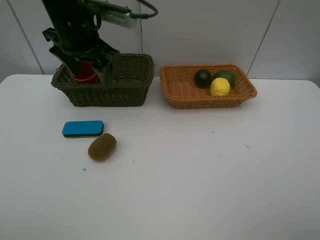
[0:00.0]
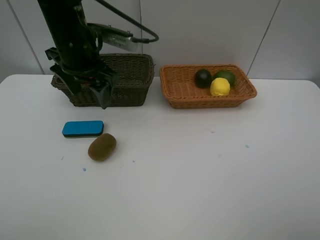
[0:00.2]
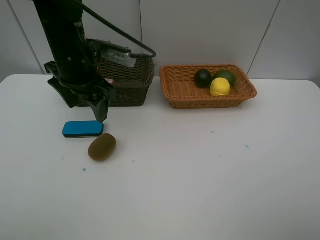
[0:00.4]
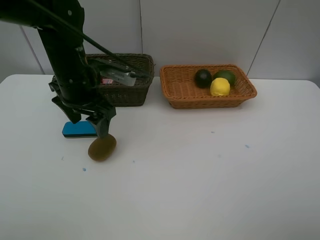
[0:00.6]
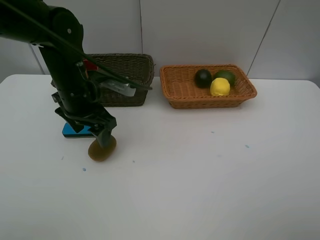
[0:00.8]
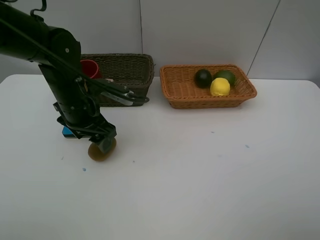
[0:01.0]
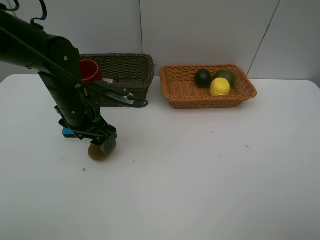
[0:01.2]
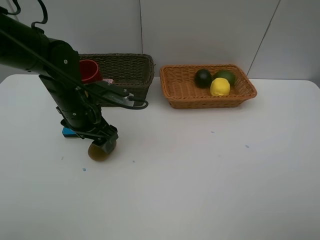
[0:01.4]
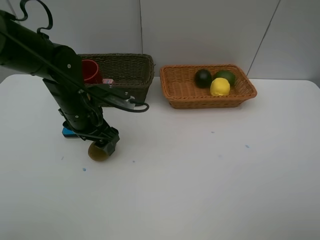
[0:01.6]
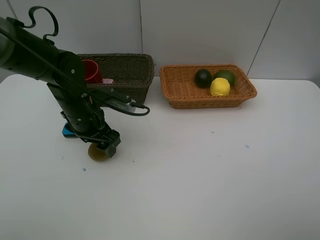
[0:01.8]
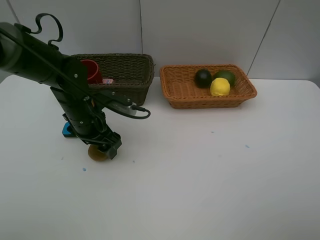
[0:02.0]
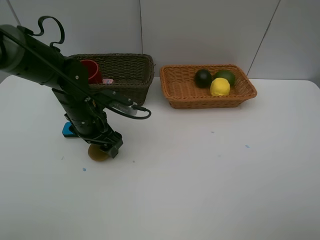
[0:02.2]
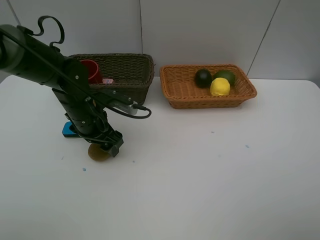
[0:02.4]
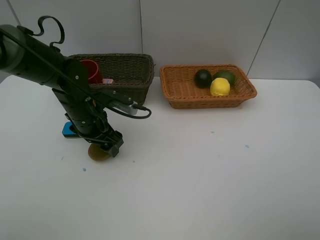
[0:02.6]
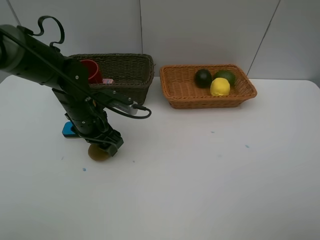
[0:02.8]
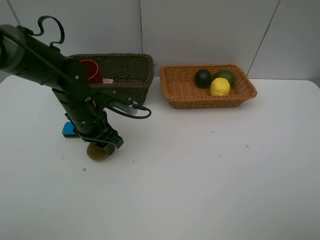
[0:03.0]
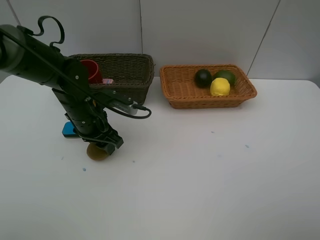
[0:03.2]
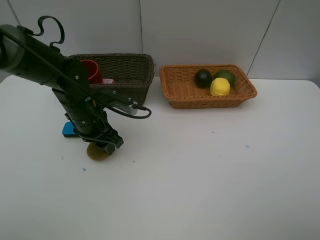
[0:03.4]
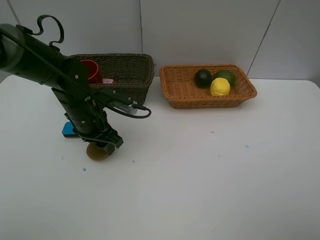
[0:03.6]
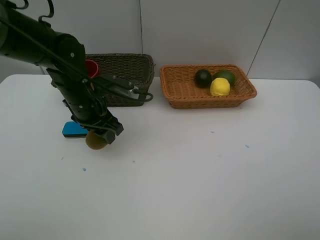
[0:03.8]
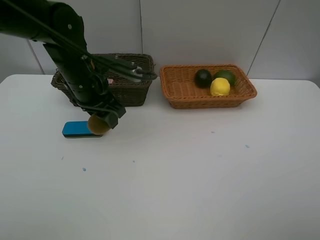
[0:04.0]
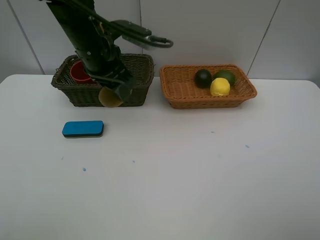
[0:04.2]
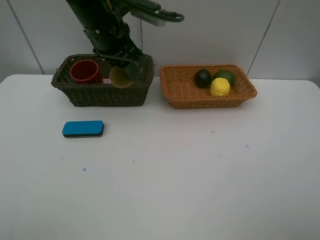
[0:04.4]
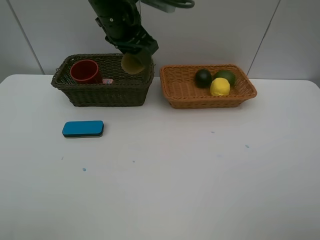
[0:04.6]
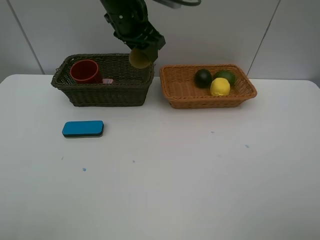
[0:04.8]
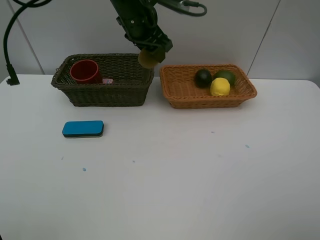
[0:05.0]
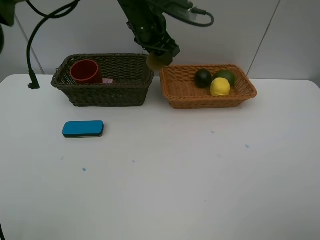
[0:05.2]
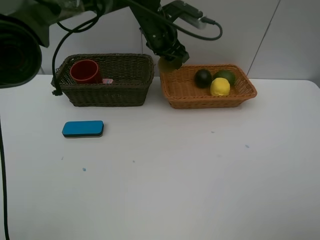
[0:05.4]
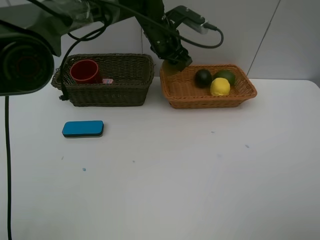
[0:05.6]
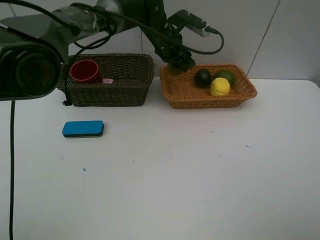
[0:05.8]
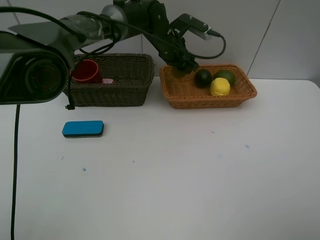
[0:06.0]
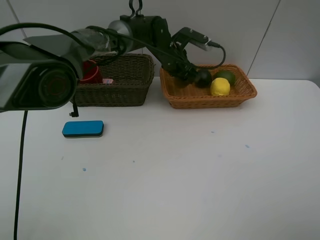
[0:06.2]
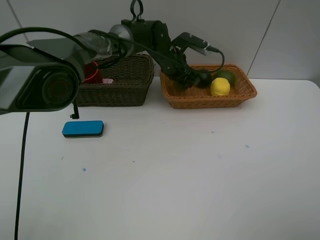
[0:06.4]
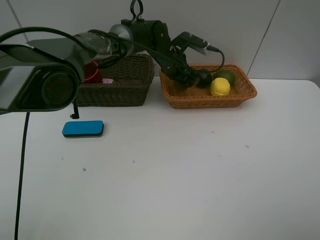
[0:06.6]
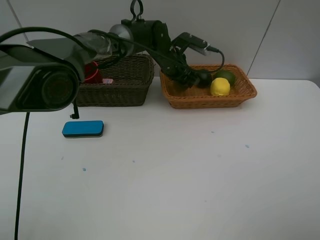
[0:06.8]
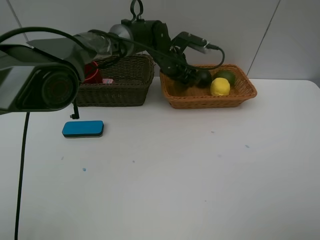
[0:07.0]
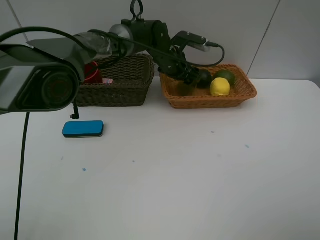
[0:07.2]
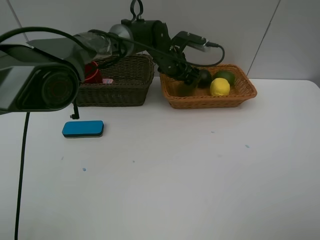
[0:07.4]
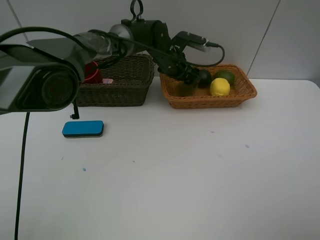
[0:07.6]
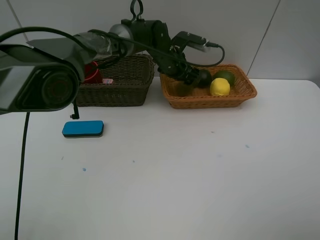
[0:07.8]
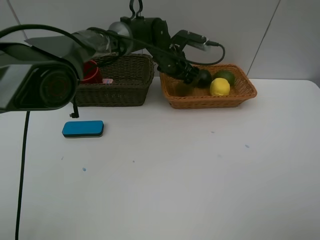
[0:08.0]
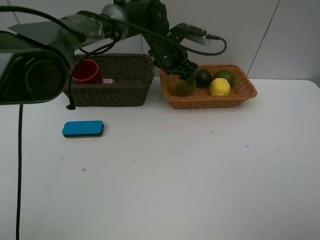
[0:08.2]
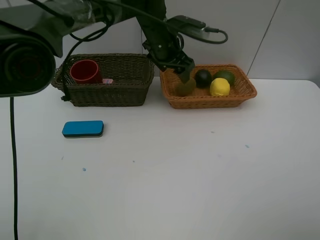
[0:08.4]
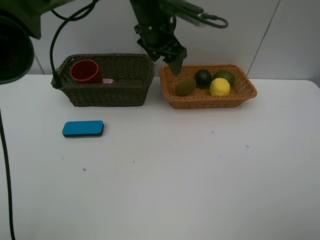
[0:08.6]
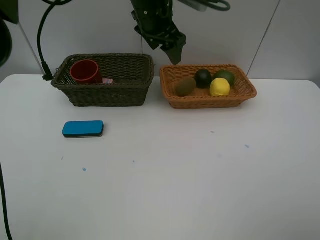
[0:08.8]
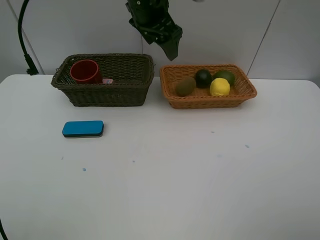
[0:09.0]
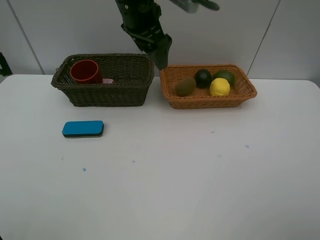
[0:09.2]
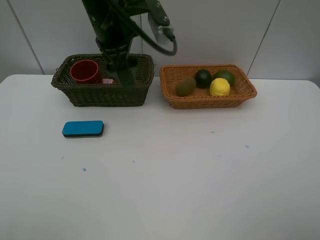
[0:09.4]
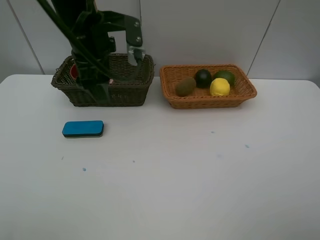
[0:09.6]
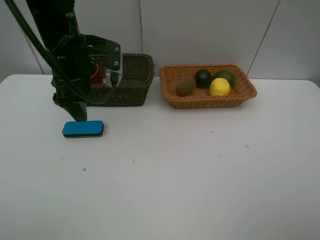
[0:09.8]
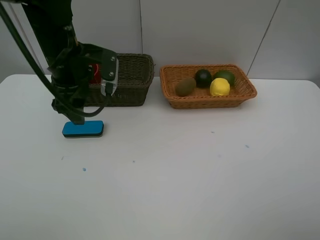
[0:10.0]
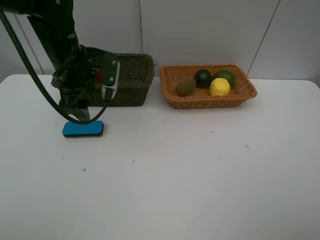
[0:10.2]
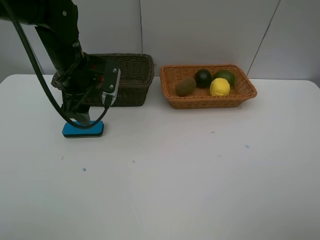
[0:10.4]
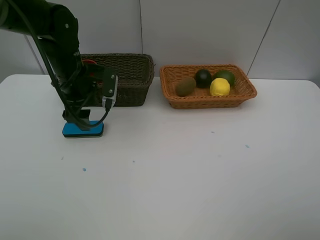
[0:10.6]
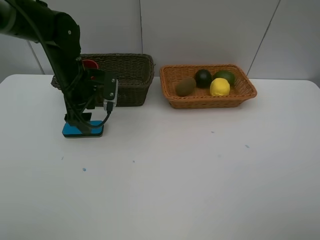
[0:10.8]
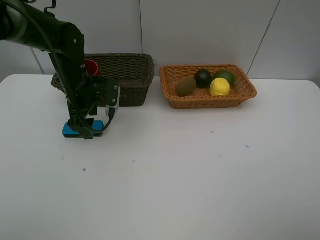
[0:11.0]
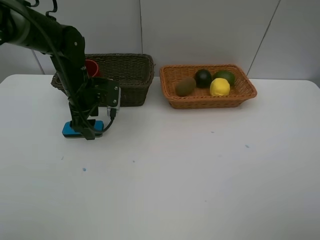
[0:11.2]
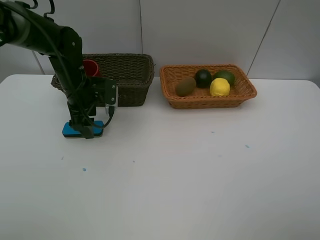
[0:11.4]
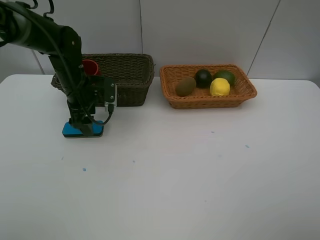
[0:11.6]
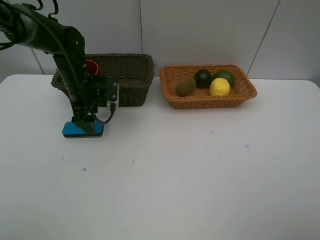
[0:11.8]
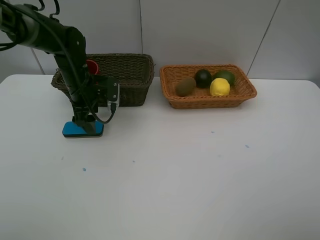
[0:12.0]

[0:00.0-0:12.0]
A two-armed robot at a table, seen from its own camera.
Task of the whole recording: Place multiple objects separately in different baskets.
Step, 0:00.0 to 0:03.8: Pick up kiwi with left gripper.
Step, 0:04.0 to 0:08.0: Place the kiwi in the light basket with left gripper.
0:00.0 to 0:01.6: The left gripper shifts roughly 15 cm downward.
0:01.6 to 0:03.0: There are only small adjustments of the grippers.
0:03.0 to 0:04.4: The left gripper shifts approximately 15 cm upward.
0:04.4 to 0:06.0: The left gripper moves forward, to the right and downward, some 20 cm.
0:06.0 to 0:07.6: The grippers make only small movements.
0:07.6 to 0:09.0: The left gripper travels upward and backward by approximately 20 cm.
0:09.0 to 0:10.4: The left gripper is displaced to the left, downward and backward by approximately 20 cm.
0:10.4 to 0:12.0: The left gripper is displaced downward by roughly 5 cm.

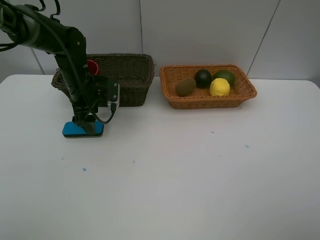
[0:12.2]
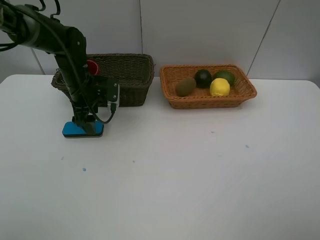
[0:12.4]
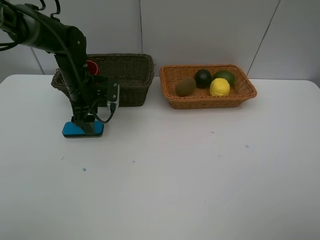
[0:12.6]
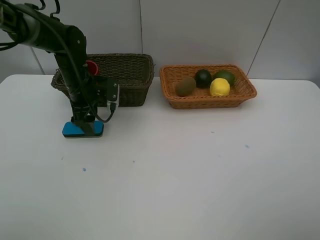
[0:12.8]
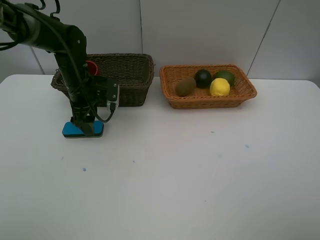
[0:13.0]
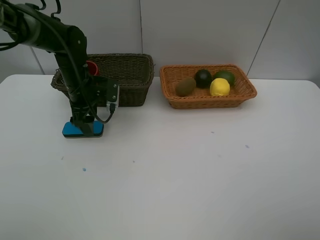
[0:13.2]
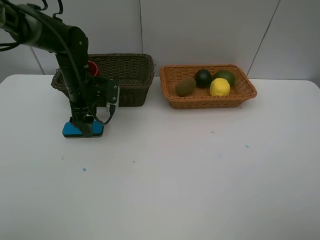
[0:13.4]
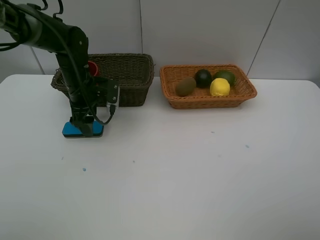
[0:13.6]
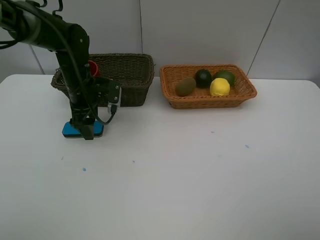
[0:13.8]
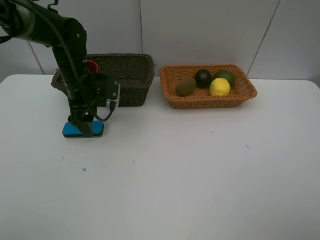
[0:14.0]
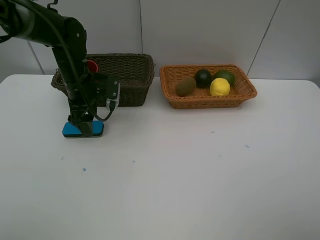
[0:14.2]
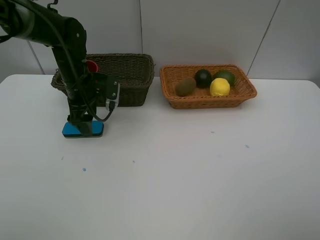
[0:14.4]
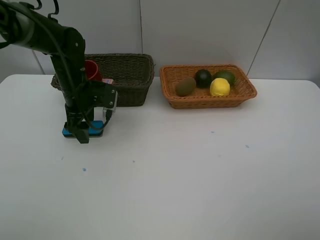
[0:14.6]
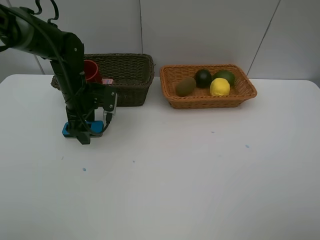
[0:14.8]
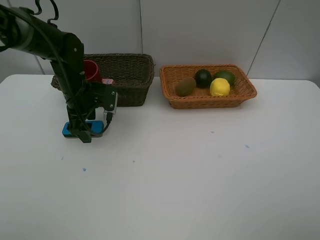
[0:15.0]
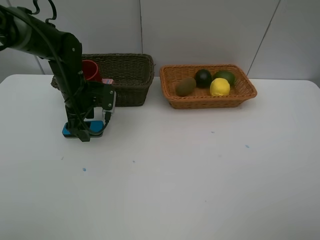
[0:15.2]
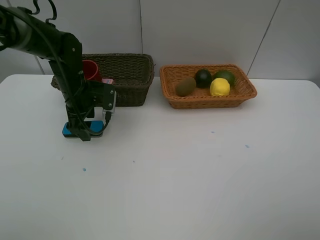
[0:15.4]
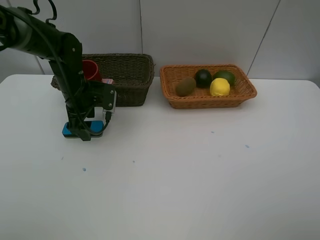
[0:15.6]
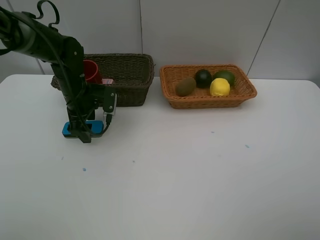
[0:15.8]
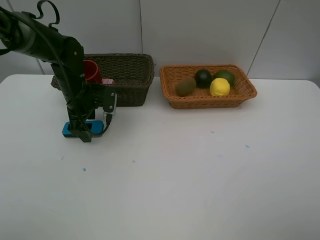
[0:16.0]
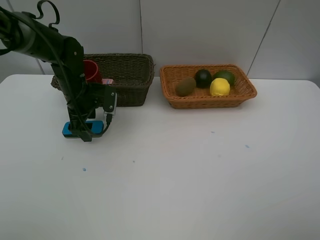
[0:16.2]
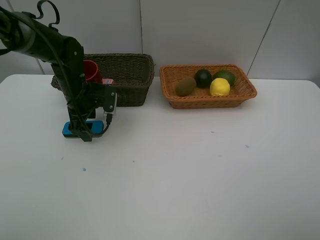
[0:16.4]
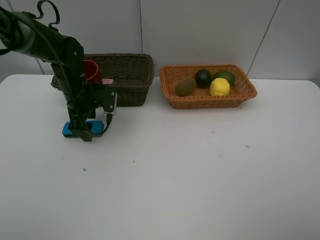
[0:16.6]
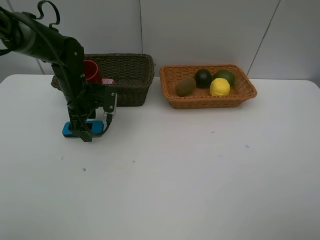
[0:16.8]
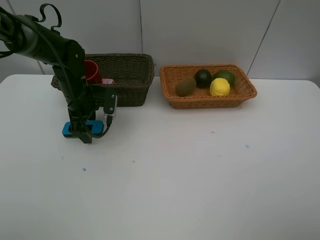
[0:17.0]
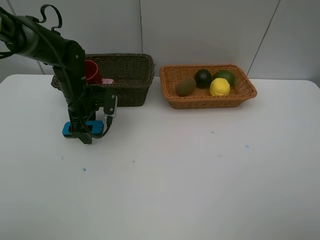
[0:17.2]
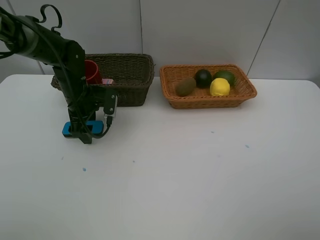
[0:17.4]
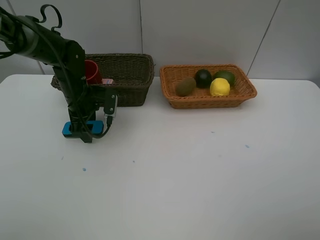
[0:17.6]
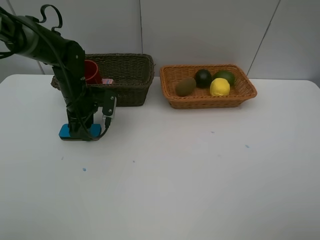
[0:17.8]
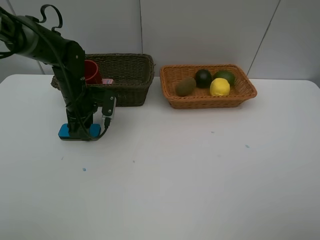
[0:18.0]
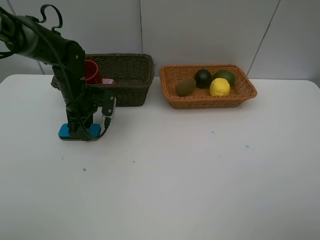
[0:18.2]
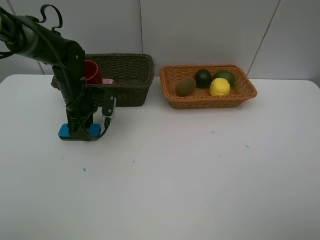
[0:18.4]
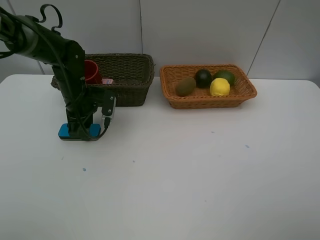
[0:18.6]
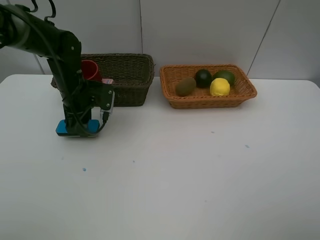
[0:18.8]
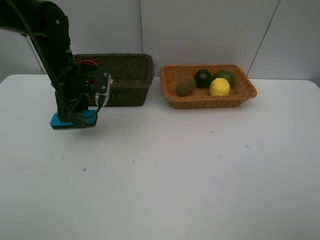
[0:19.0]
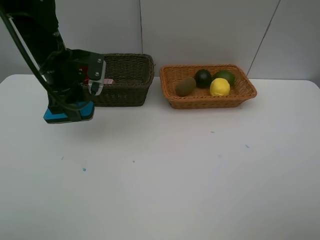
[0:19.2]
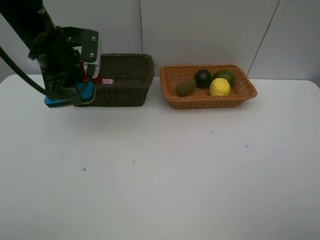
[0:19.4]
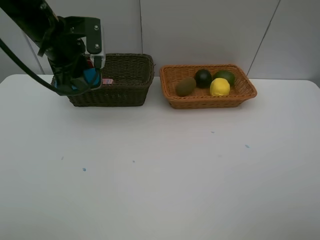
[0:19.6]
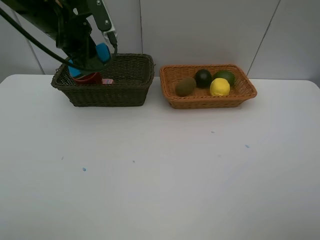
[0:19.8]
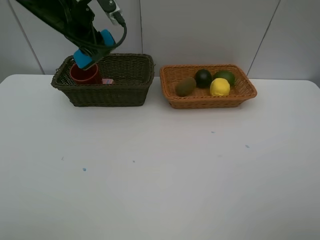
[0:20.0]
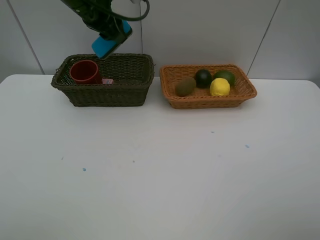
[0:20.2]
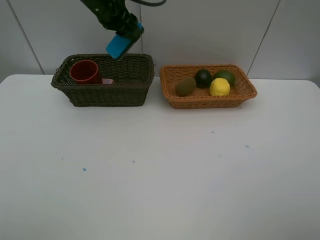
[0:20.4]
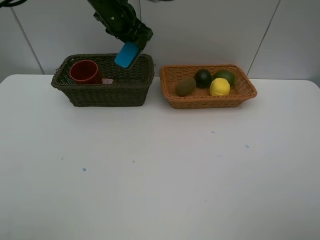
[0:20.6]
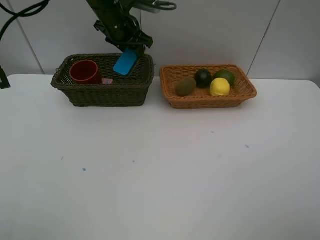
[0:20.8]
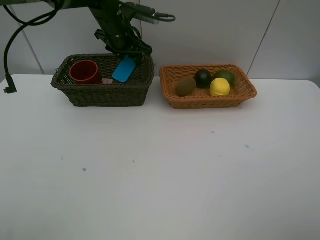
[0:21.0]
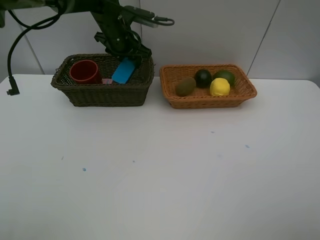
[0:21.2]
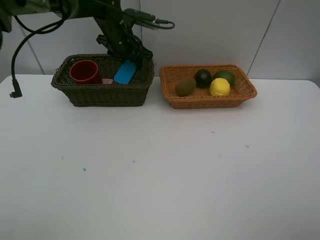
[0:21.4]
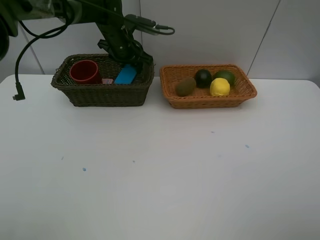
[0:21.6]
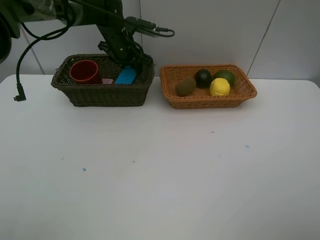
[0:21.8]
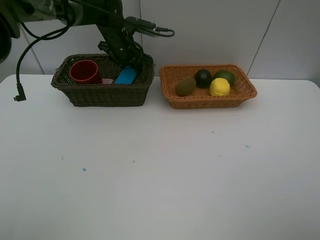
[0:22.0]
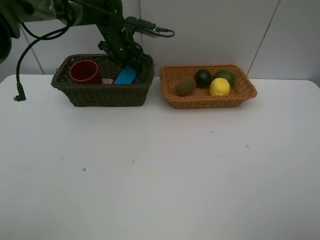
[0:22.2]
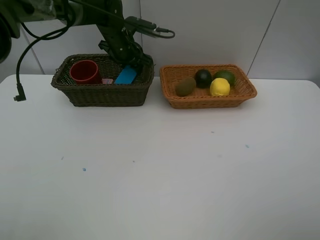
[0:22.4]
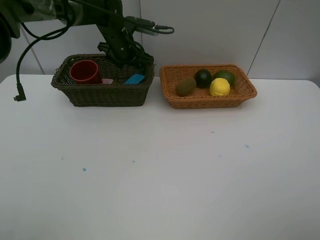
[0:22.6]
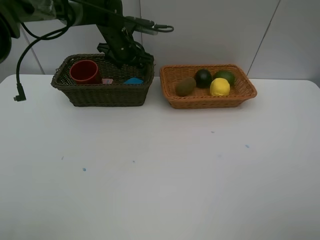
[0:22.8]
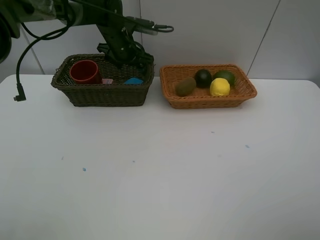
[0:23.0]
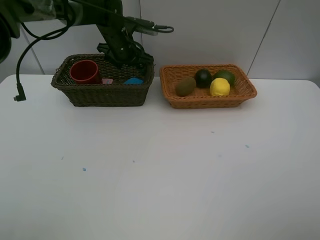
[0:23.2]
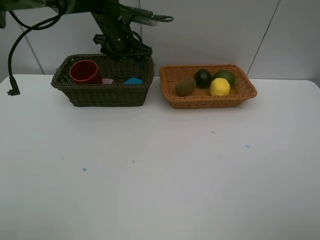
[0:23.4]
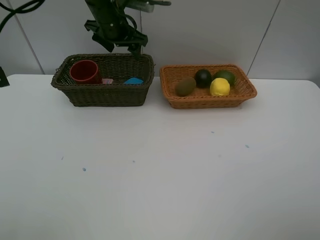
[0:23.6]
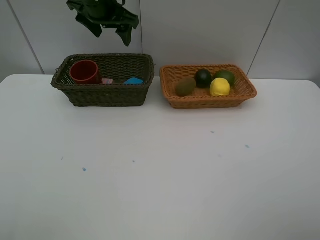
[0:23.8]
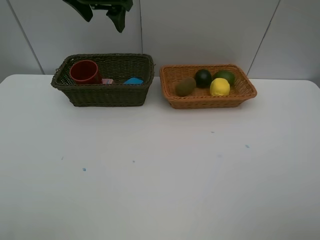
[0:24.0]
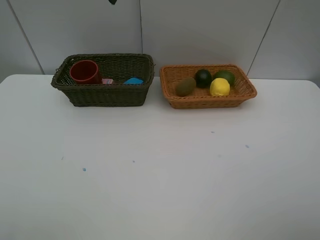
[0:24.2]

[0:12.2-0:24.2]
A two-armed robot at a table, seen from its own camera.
Task of the whole recording: Place multiple objects separately in different baskets.
Step, 0:12.2 to 0:18.8: Pick up blackboard eraser with left gripper.
Step, 0:19.0 to 0:22.8: Place the blackboard eraser in the dark basket with left gripper.
0:12.2 to 0:15.2: There are only small adjustments of the grippers.
0:15.2 to 0:16.6: Neither gripper changes place.
0:16.6 to 0:18.2: The left gripper closes up.
0:18.2 to 0:19.8: The left gripper travels upward by approximately 15 cm.
0:19.8 to 0:21.2: The left gripper is displaced forward, to the right and downward by approximately 15 cm.
0:21.2 to 0:22.6: The grippers make only small movements.
0:22.6 to 0:24.2: The left gripper shifts approximately 25 cm upward and backward.
